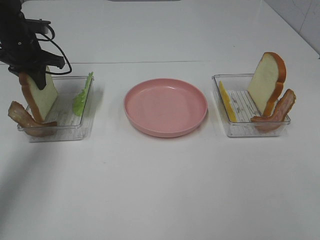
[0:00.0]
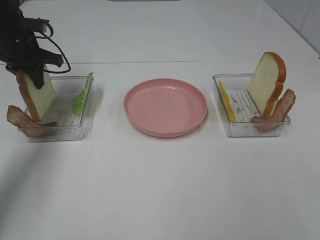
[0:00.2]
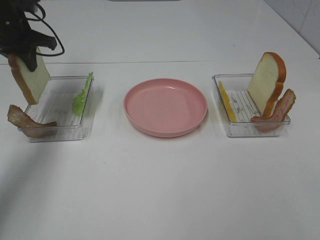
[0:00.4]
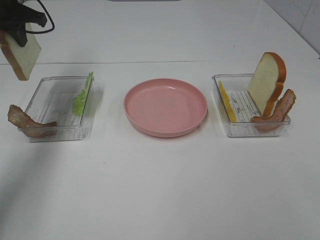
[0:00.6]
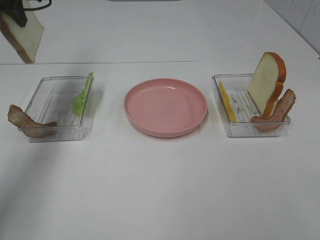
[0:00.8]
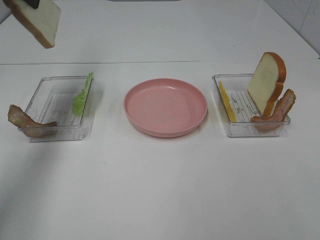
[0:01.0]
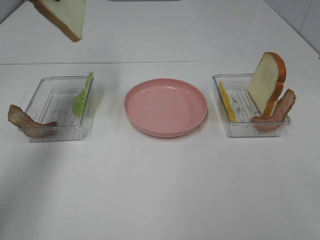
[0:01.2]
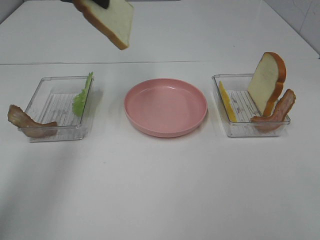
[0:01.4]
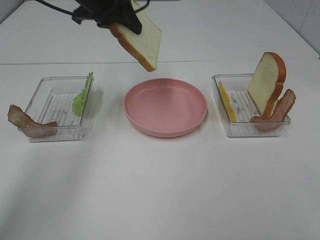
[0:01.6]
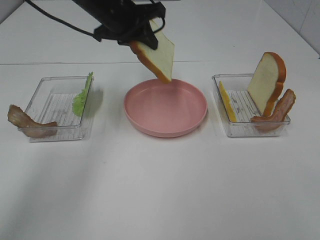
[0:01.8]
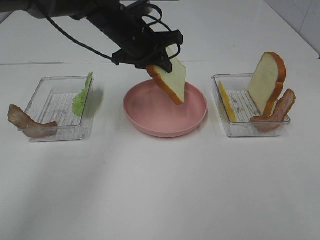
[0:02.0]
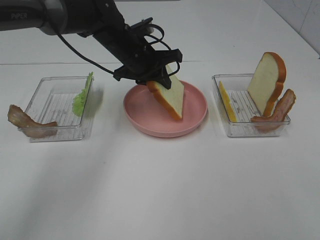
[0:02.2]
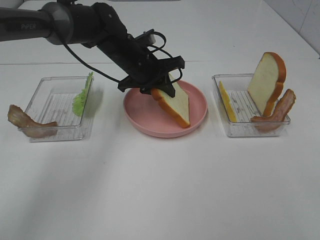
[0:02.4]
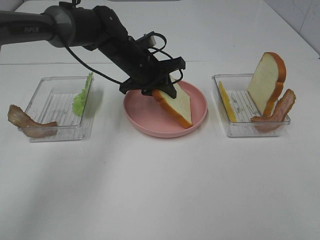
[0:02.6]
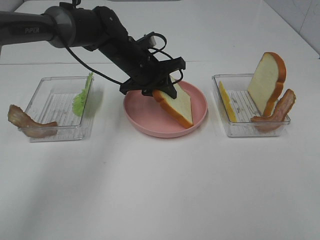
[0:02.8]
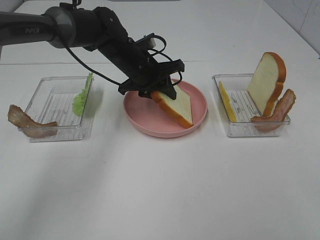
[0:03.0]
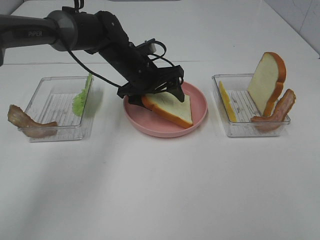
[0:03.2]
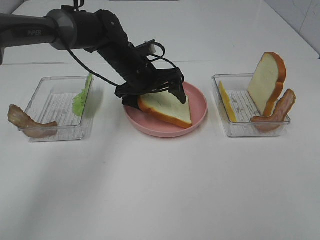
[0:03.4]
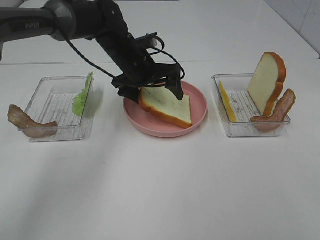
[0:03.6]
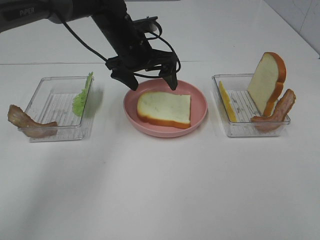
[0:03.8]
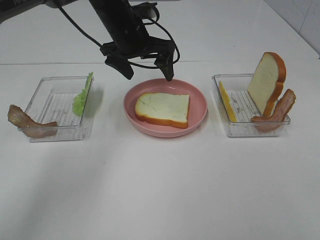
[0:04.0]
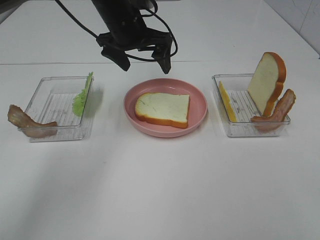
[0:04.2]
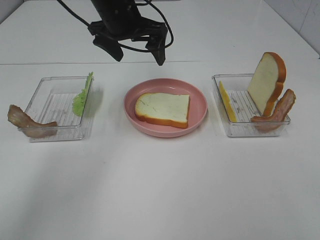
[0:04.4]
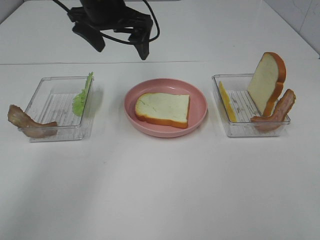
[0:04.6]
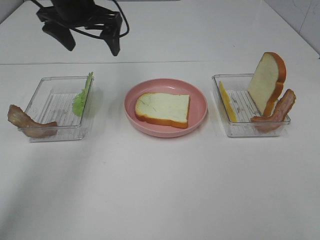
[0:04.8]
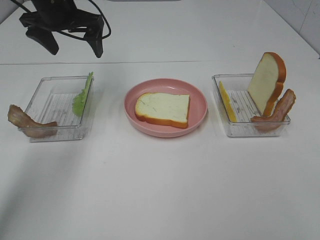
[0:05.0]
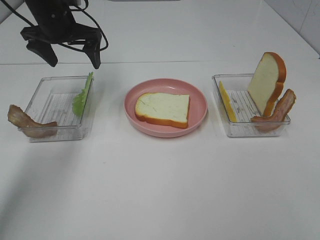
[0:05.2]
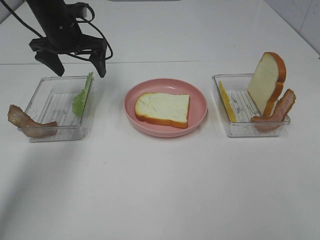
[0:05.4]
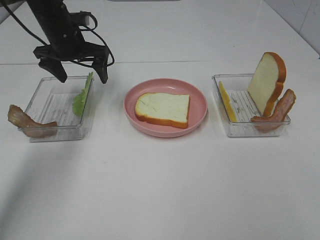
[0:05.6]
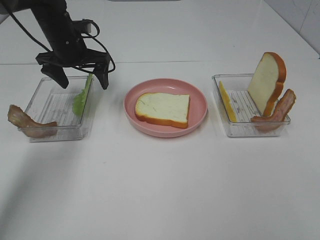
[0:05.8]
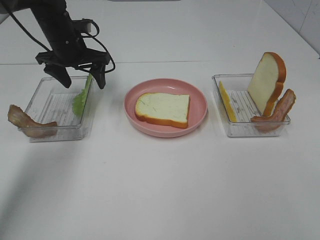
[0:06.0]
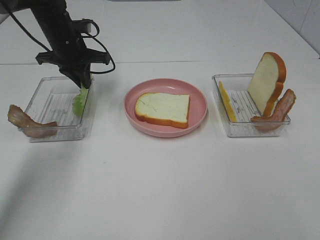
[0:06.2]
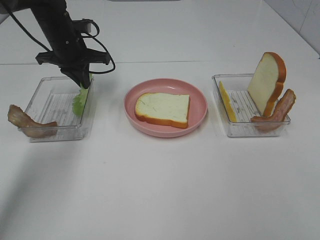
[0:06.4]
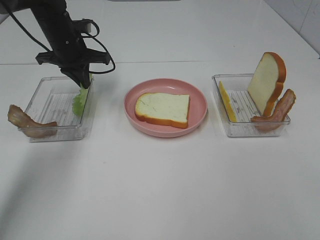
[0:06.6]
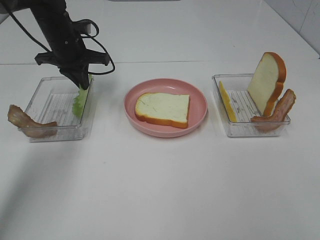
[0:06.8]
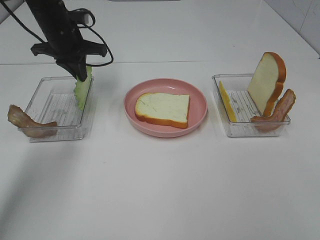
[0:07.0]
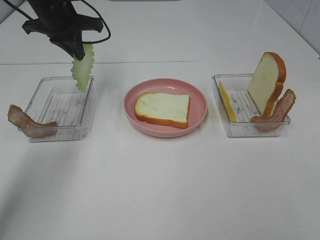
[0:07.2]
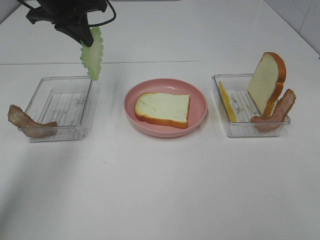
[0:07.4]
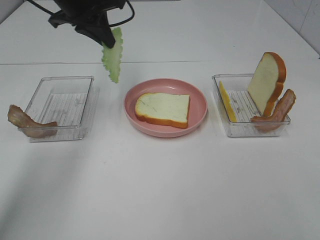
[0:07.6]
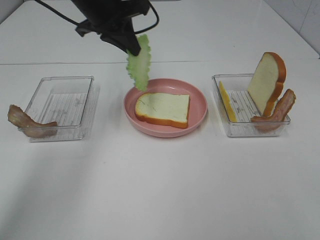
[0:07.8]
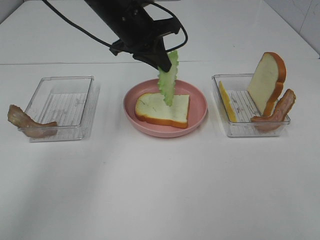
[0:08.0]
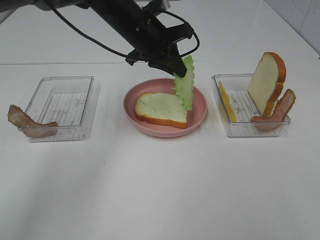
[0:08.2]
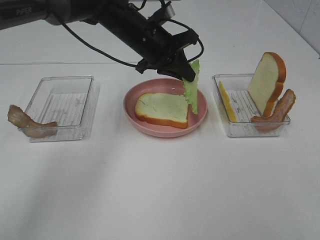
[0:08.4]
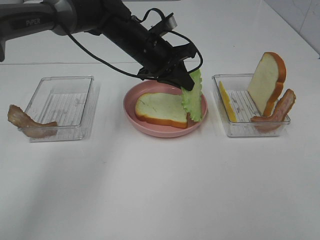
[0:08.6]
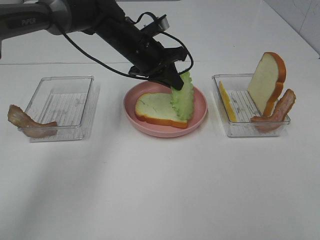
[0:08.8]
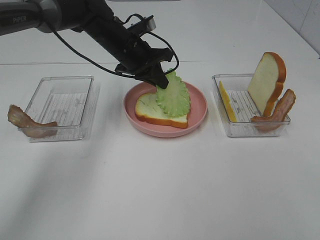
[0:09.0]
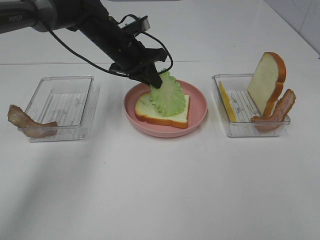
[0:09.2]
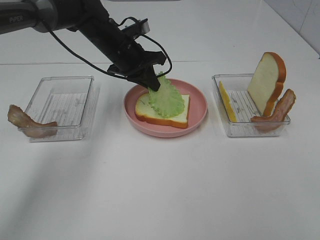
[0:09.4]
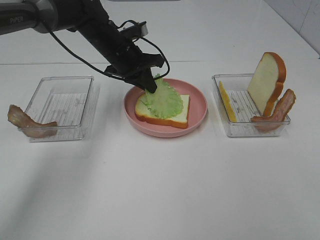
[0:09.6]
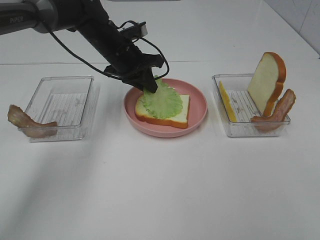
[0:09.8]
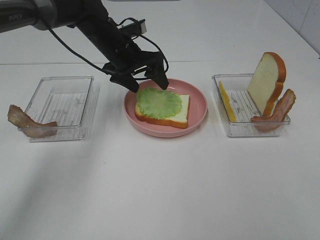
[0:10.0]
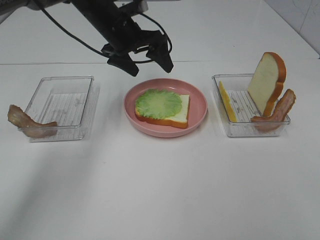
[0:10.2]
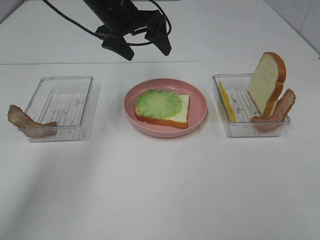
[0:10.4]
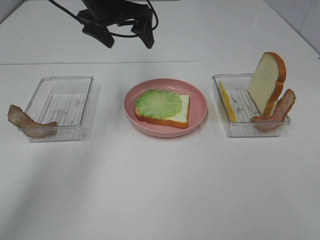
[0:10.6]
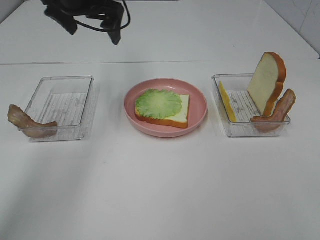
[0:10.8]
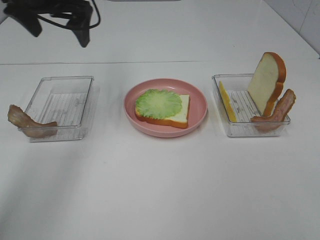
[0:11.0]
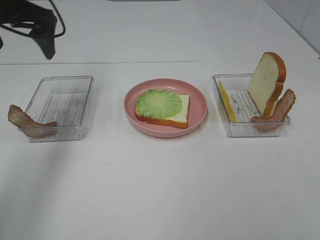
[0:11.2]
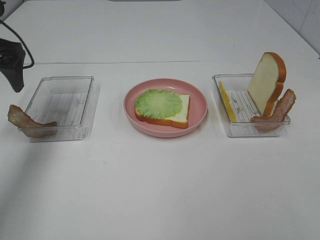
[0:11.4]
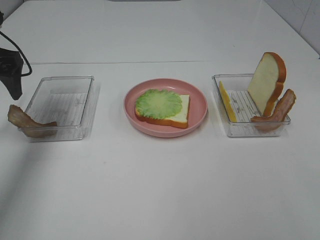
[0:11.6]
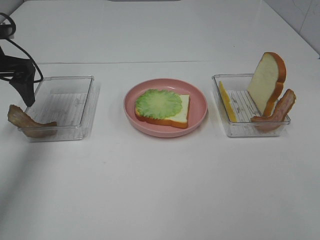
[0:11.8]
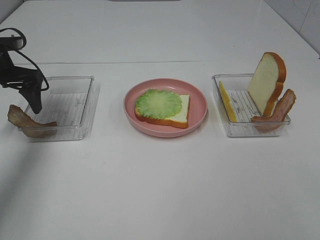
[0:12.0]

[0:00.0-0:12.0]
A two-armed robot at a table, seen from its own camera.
Task of the whole recording: Make sandwiches.
Step, 0:00.0 to 0:03.8: Left hand:place the bread slice on the plate.
Step, 0:04.0 to 0:05.8: Left hand:grab the lettuce slice.
Step, 0:06.0 to 0:10.0: Left hand:place the lettuce slice on the bread slice.
0:00.0 to 0:01.6: The left gripper goes roughly 20 cm to the right and upward.
0:01.6 to 0:03.0: The left gripper goes approximately 15 cm downward and to the right.
0:03.0 to 0:04.4: The left gripper shifts about 10 cm upward, and opens up.
0:04.4 to 0:06.0: The left gripper goes some 15 cm to the left and downward.
0:06.0 to 0:07.6: The left gripper is displaced upward by about 10 cm, and closes its fingers.
0:07.6 to 0:09.0: The left gripper moves downward and to the right, roughly 15 cm.
0:09.0 to 0:10.4: The left gripper shifts some 10 cm upward, and opens its fingers.
0:10.4 to 0:12.0: The left gripper heads to the left, covering some 20 cm.

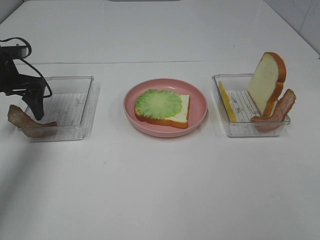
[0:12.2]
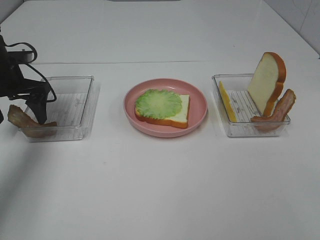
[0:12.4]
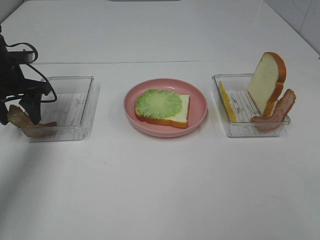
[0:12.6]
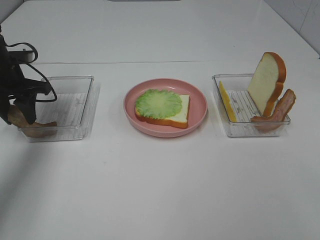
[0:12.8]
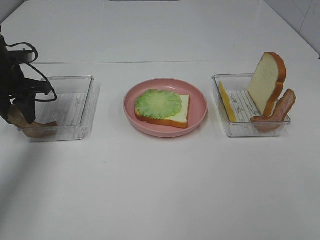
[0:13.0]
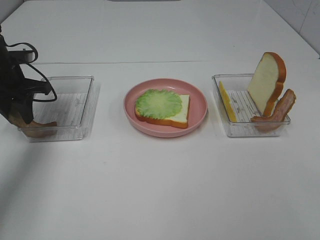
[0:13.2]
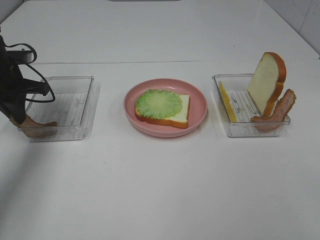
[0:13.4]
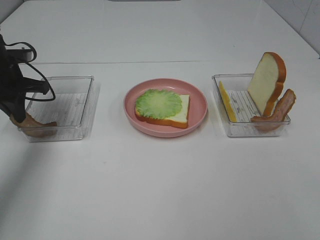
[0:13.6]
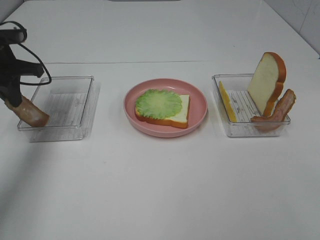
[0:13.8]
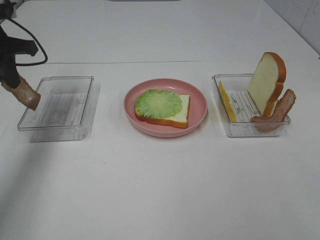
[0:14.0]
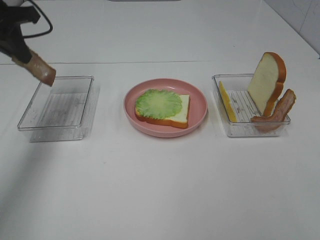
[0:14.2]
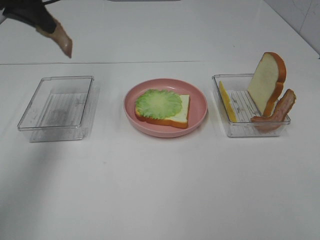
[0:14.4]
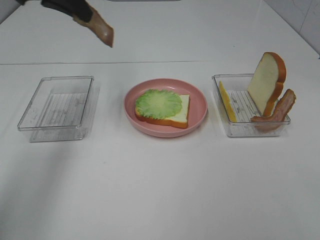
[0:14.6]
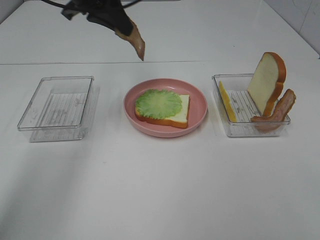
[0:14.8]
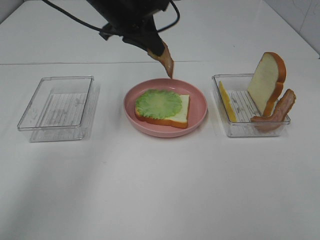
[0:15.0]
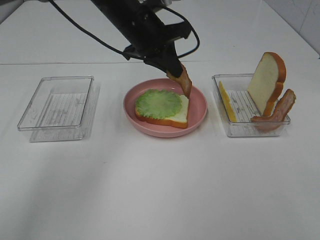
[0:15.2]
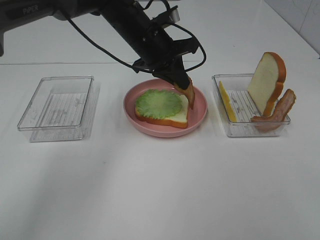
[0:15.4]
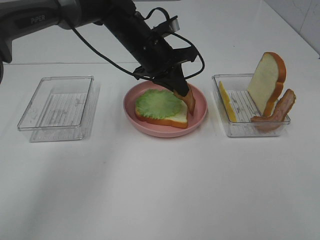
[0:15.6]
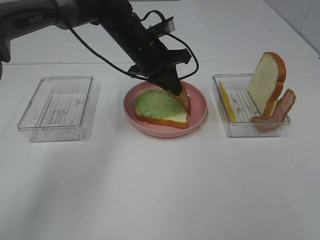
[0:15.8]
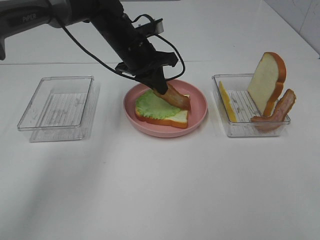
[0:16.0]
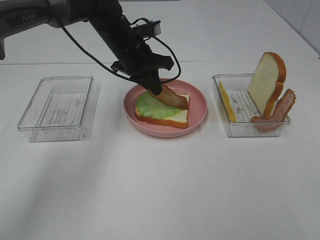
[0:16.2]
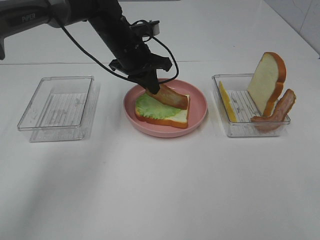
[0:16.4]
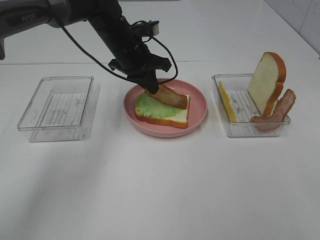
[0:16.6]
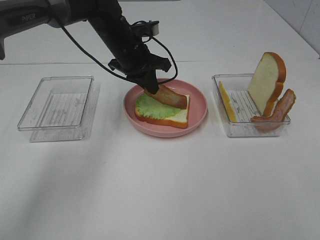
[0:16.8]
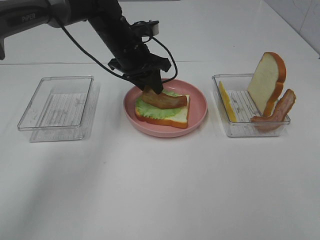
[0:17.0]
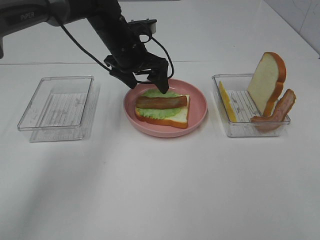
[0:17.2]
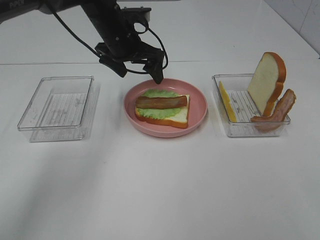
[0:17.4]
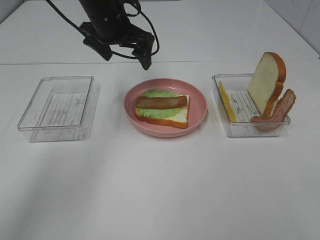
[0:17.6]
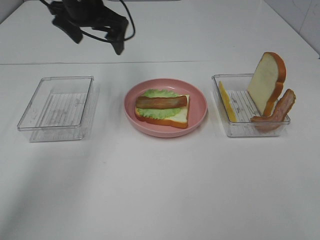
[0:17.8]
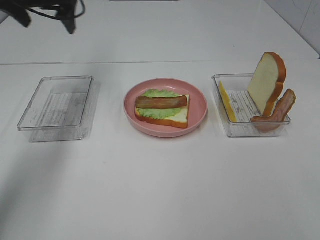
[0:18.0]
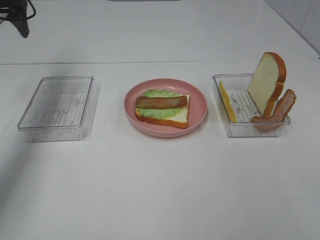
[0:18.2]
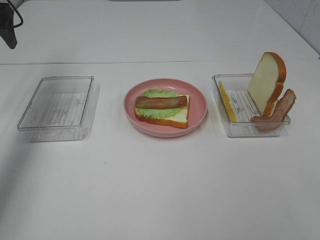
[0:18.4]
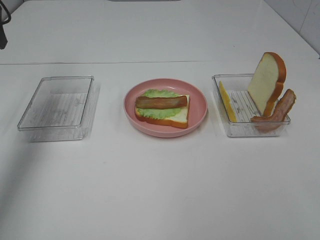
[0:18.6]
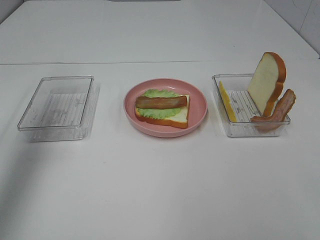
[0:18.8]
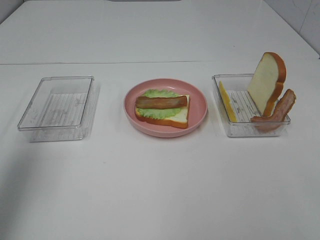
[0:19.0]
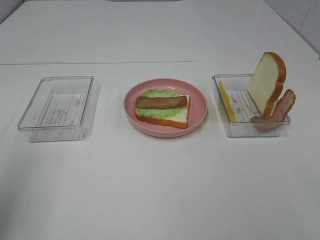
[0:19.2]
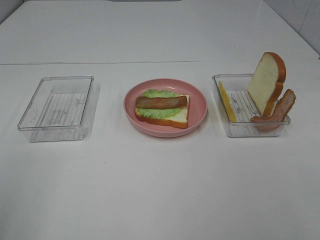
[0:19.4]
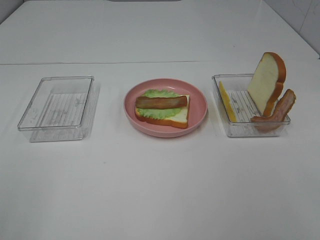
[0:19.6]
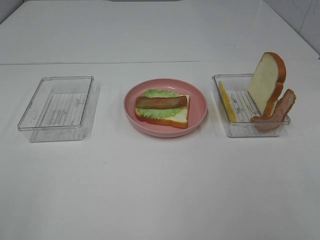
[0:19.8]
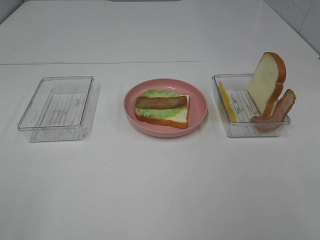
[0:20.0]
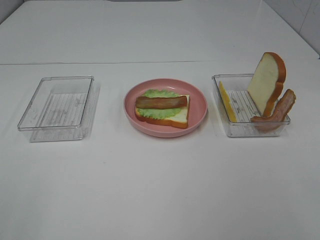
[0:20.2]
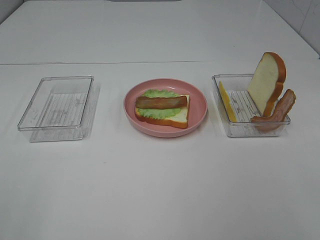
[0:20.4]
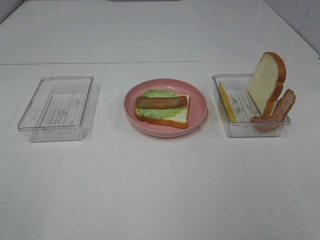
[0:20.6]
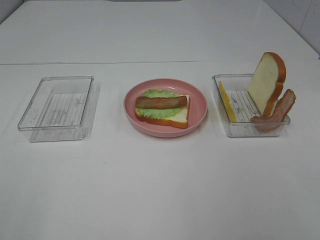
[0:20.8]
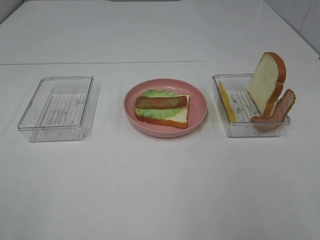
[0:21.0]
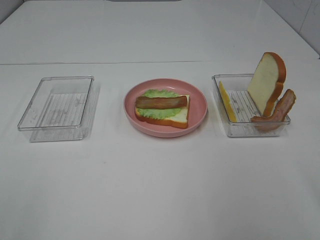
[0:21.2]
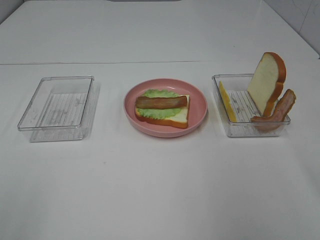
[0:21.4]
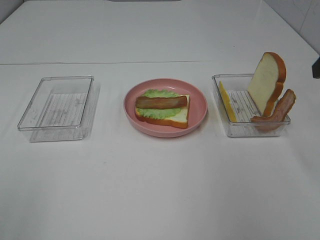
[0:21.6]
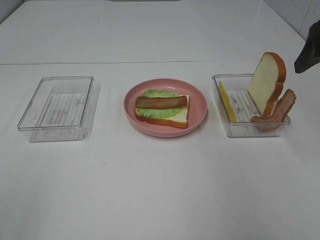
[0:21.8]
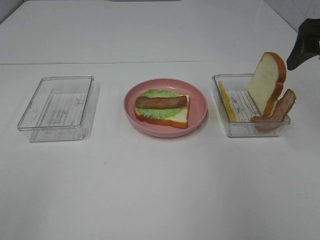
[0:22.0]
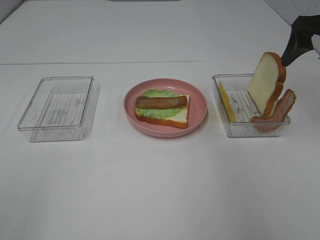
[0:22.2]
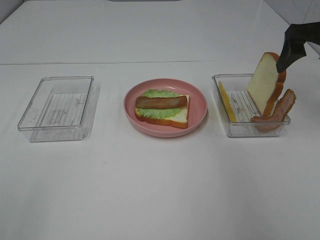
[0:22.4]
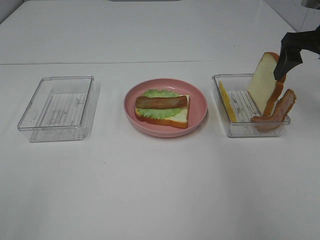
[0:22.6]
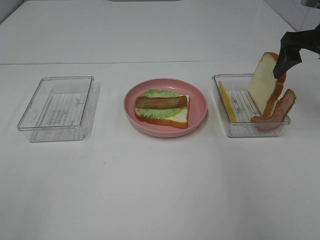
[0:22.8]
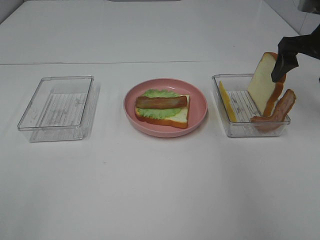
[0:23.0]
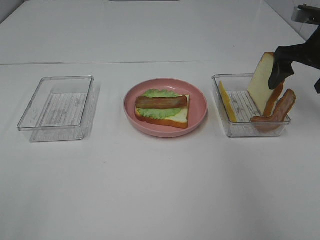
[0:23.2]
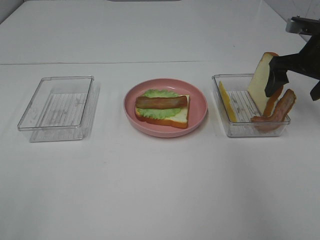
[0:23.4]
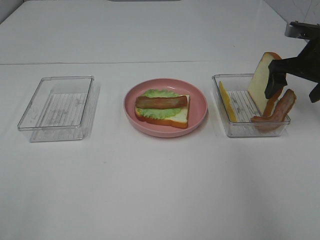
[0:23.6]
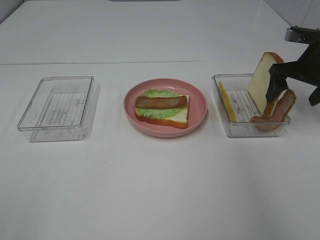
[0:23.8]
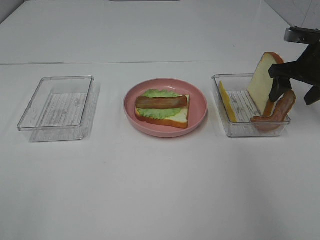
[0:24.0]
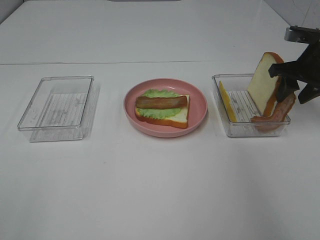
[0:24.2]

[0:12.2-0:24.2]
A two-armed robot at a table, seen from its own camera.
Task of the whole recording: Make sandwiches.
Step, 0:13.8 to 0:17.4: Left hand:place bacon on lettuce slice.
0:12.2 to 0:13.8: The left gripper closes its fingers.
0:13.8 to 0:15.2: The left gripper travels to the right by about 25 cm.
0:15.2 to 0:16.6: The left gripper goes approximately 5 cm downward.
0:16.6 to 0:18.2: The left gripper moves to the left and upward, approximately 30 cm, and opens.
0:18.2 to 0:19.8: The left gripper moves backward, approximately 50 cm.
0:21.2 to 0:22.6: The right gripper heads forward, covering some 25 cm.
0:22.6 to 0:24.2: The right gripper goes about 5 cm downward, and closes.
